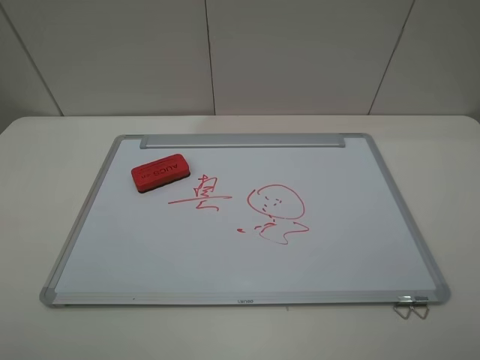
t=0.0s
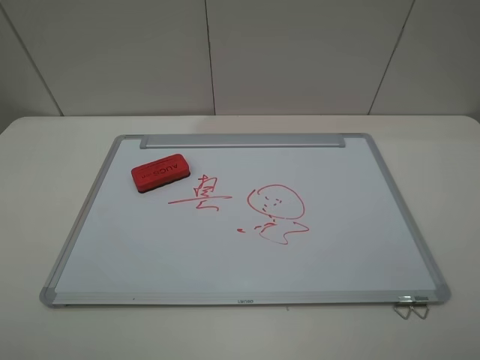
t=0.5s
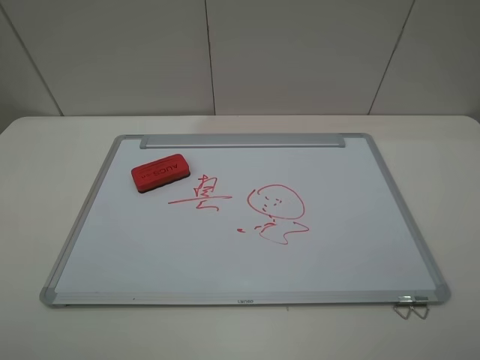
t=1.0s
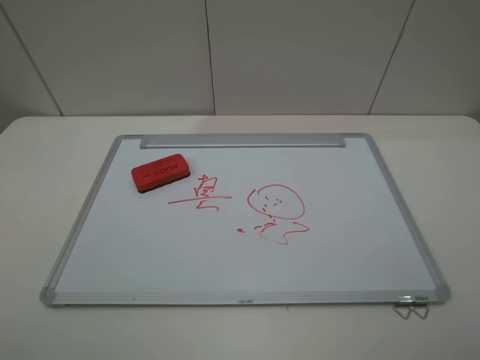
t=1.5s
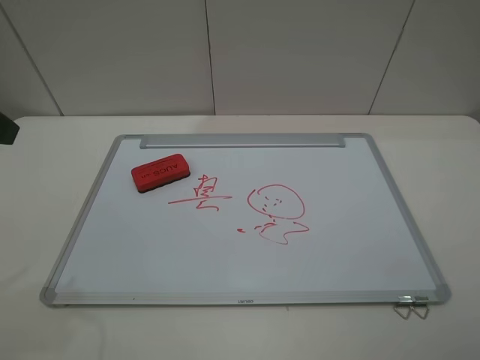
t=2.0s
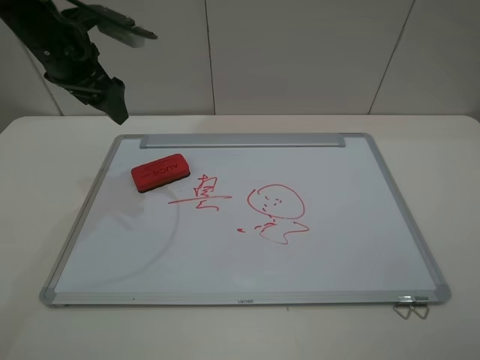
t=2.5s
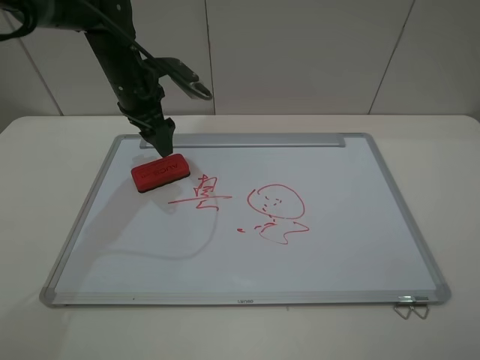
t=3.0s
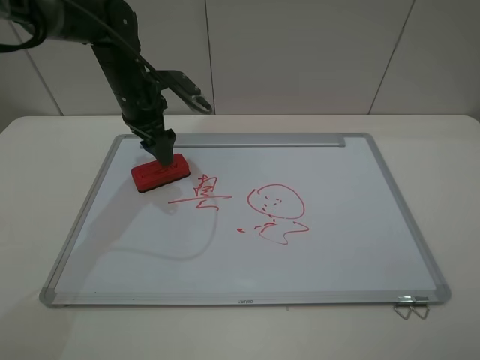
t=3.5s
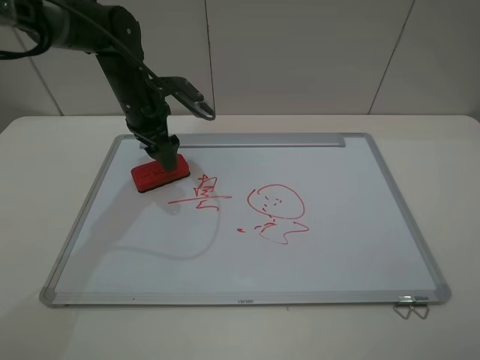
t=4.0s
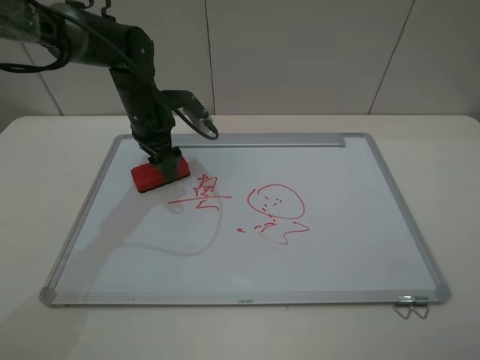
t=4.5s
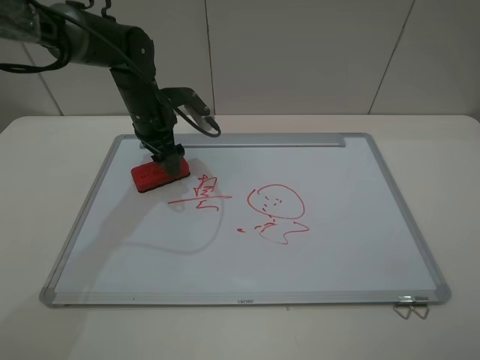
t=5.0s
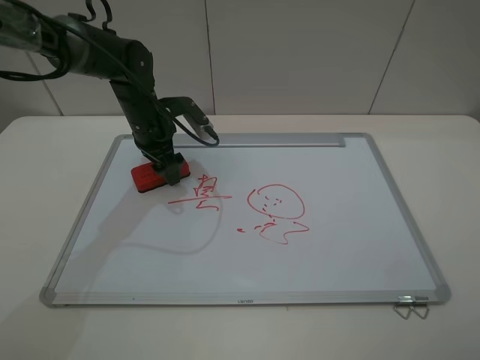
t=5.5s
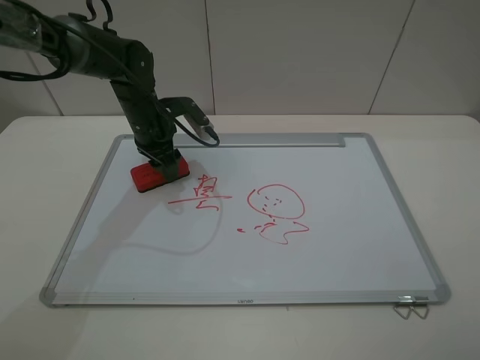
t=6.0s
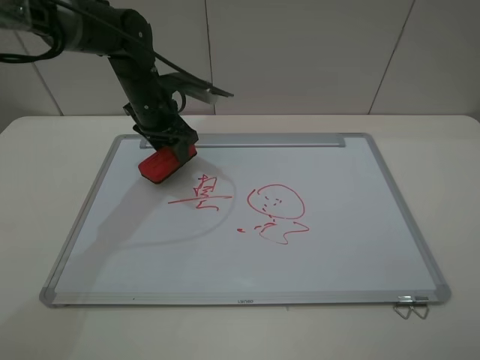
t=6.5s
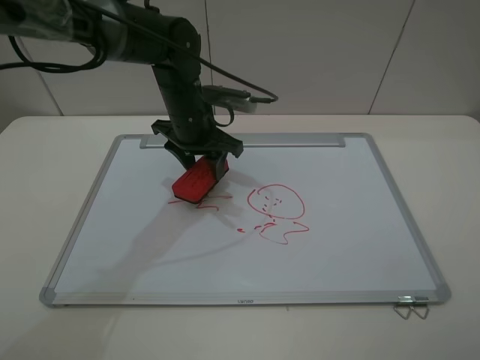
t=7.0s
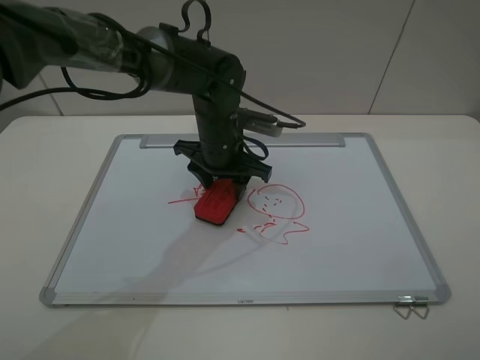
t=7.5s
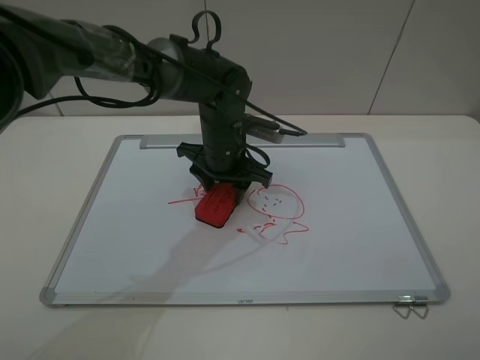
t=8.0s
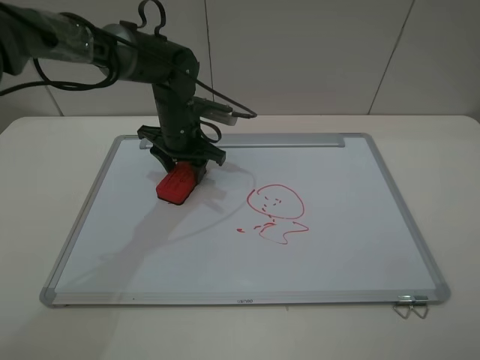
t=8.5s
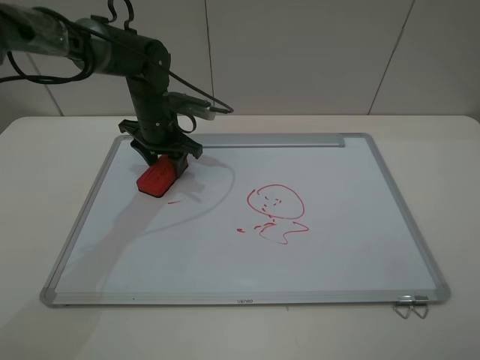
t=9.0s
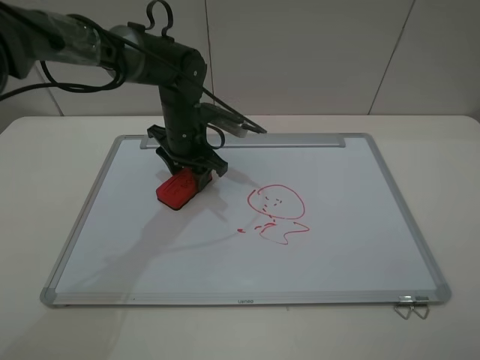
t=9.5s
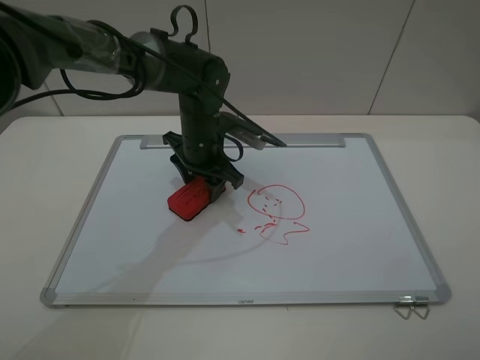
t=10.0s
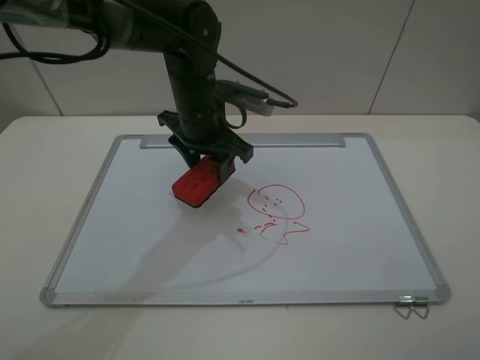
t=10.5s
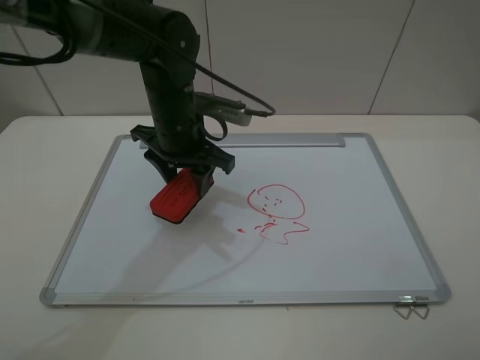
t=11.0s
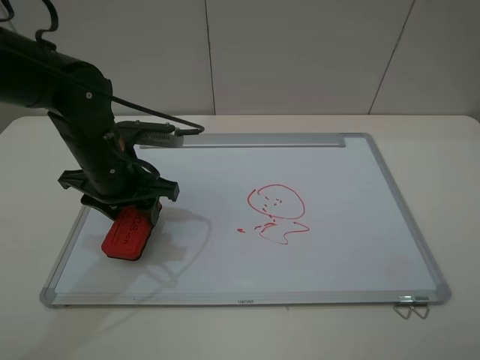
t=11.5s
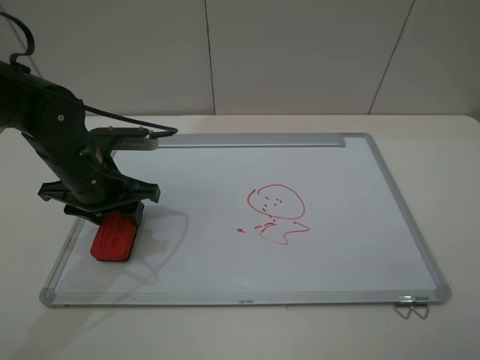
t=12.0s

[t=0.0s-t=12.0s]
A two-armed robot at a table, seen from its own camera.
Step, t=0.0s to t=6.0s: Grasp the eraser with the left gripper.
Step, t=6.5s to t=10.0s: Grasp the eraser and wipe the blackboard with the left gripper.
t=2.0s to t=4.0s: The left gripper goes roughly 30 cm forward, downward and to the right.
t=4.0s to t=6.0s: The left gripper closes.
t=6.0s to t=8.0s: The left gripper shifts approximately 15 cm to the right and backward.
t=8.0s to t=10.0s: The left gripper travels to the left and back again, about 10 cm each way.
t=10.0s to t=12.0s: The left gripper goes some 15 cm to the left and backward.

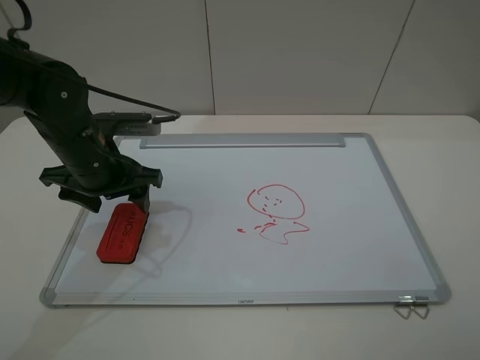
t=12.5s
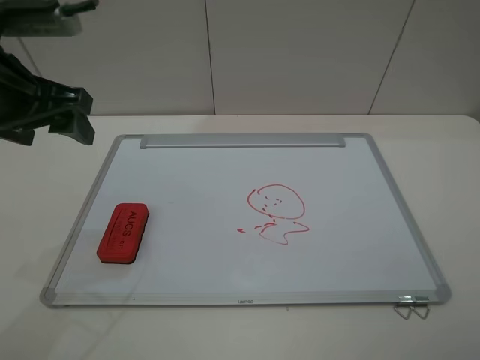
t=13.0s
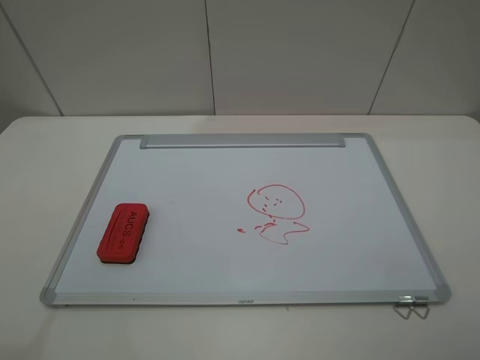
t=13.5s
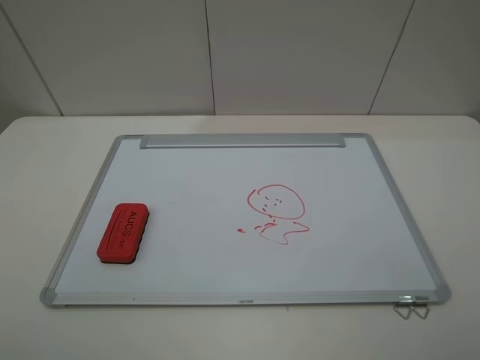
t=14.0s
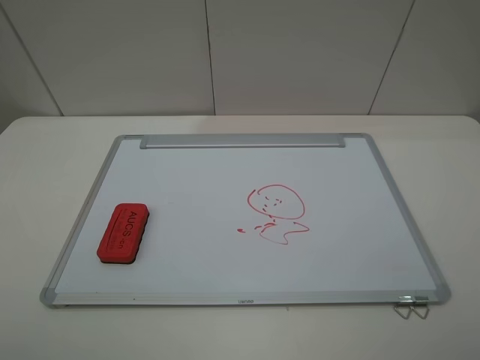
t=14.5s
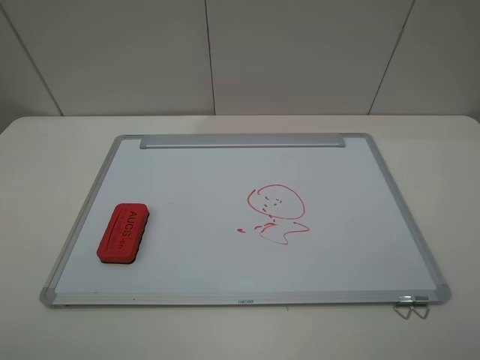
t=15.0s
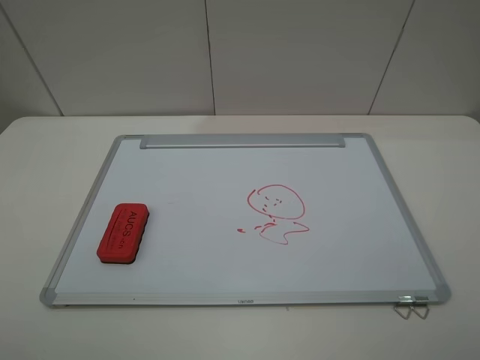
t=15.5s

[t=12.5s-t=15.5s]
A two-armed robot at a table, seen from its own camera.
t=12.5s to t=14.0s: The left gripper moves backward, upward and to the left, roughly 35 cm.
